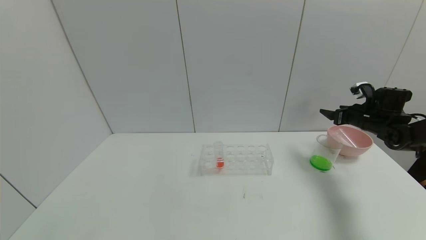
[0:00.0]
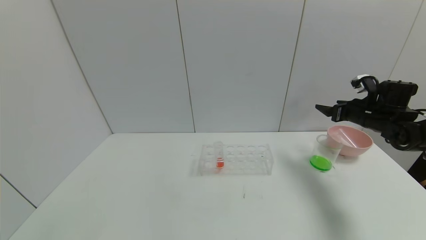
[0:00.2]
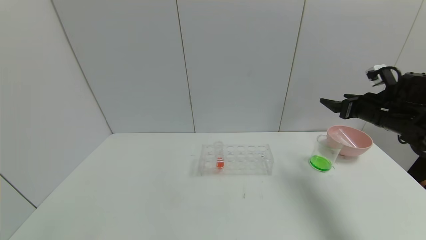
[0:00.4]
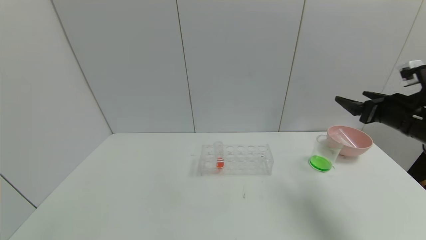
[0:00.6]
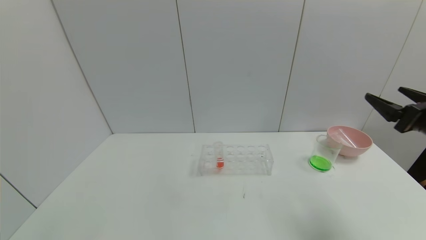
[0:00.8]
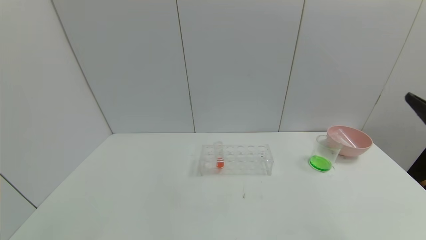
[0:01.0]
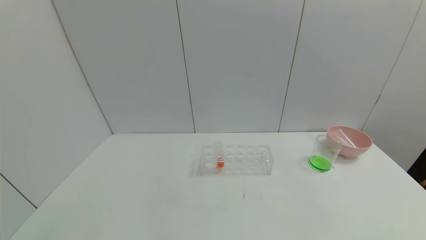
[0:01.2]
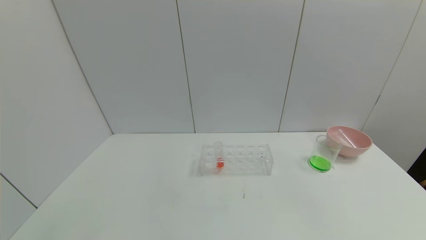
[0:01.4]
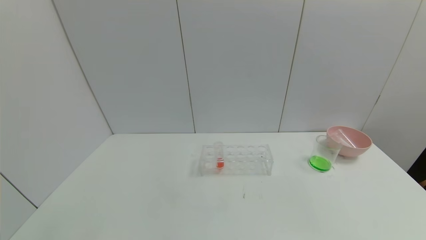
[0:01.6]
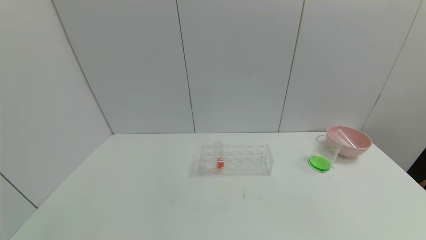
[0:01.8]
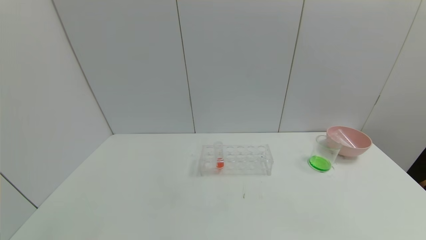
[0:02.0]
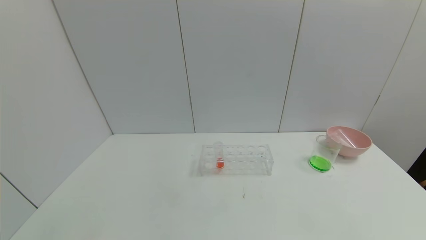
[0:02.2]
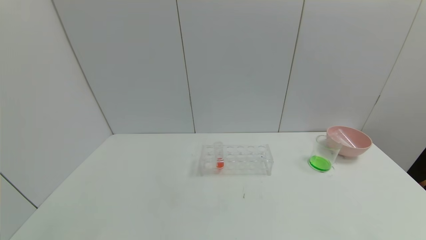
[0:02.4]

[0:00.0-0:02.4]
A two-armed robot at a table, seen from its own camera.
Task of the whole recording: pick up the test tube with yellow pigment and the test tube with blue pigment by grippers and pour them into the beaker.
0:00.0 to 0:01.2: The right gripper moves backward, roughly 35 cm.
